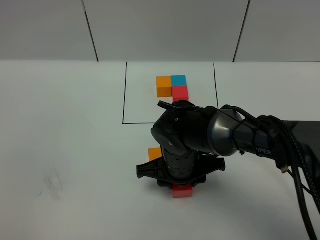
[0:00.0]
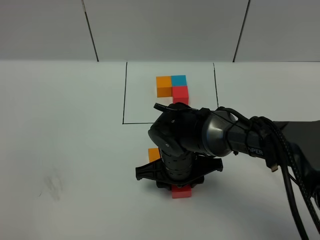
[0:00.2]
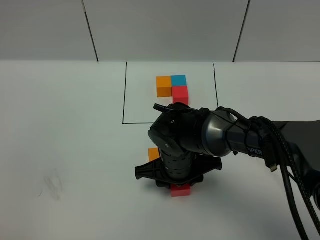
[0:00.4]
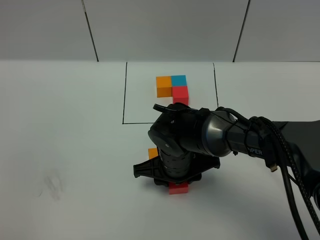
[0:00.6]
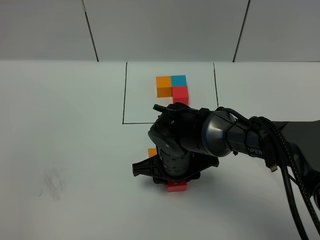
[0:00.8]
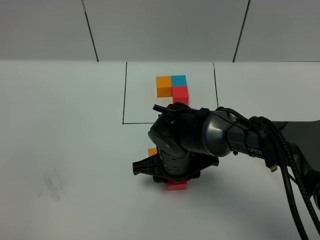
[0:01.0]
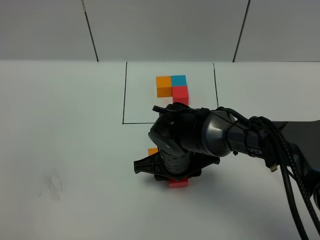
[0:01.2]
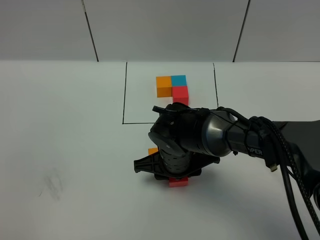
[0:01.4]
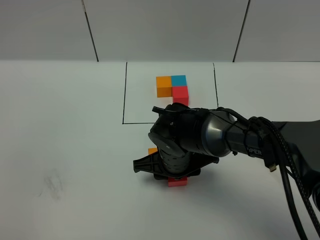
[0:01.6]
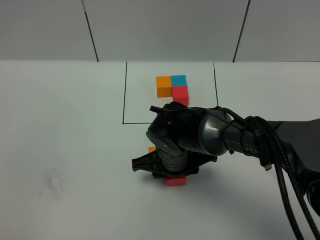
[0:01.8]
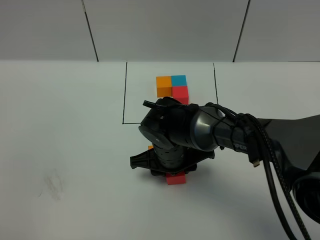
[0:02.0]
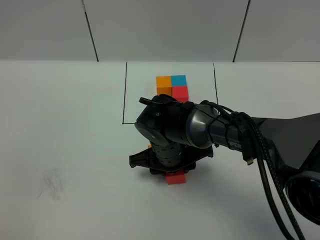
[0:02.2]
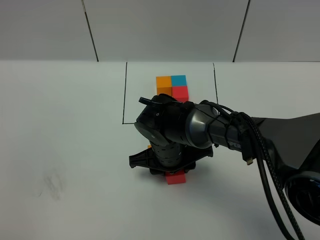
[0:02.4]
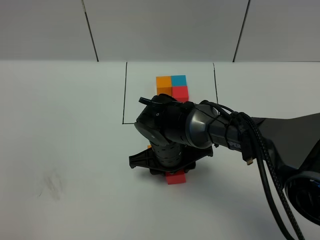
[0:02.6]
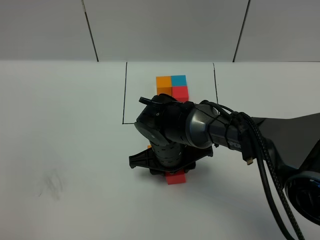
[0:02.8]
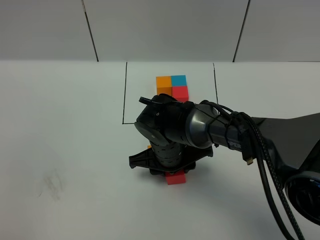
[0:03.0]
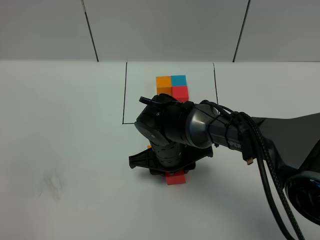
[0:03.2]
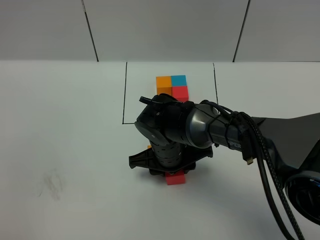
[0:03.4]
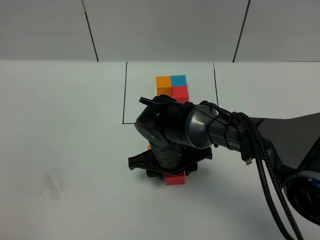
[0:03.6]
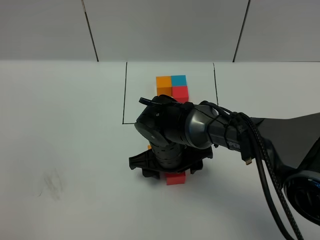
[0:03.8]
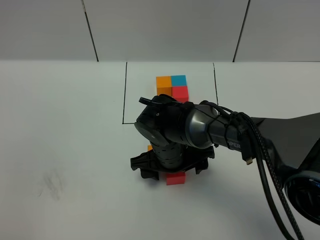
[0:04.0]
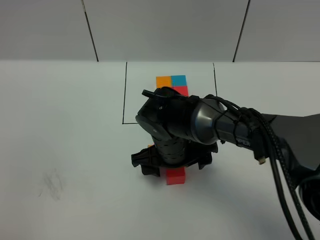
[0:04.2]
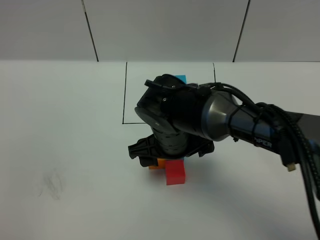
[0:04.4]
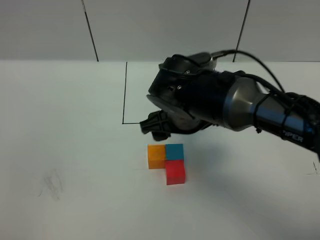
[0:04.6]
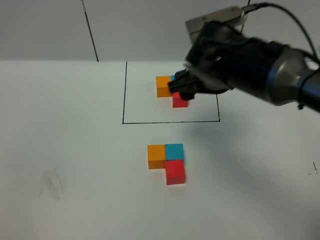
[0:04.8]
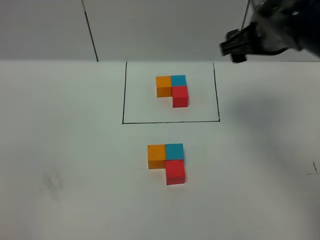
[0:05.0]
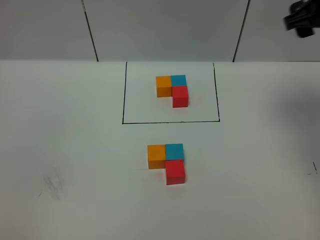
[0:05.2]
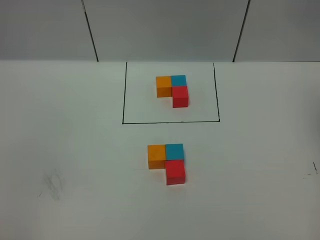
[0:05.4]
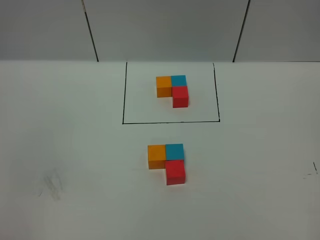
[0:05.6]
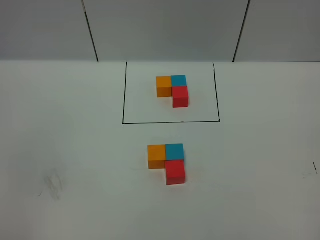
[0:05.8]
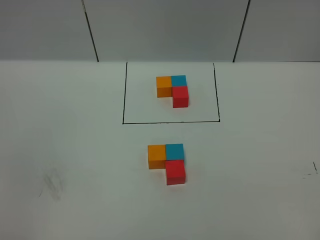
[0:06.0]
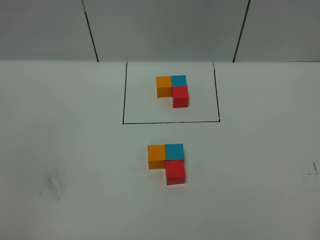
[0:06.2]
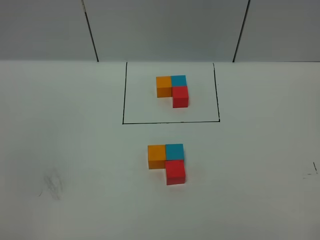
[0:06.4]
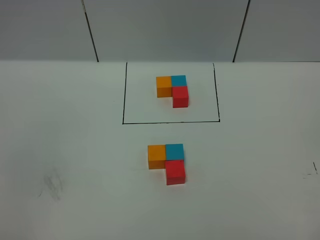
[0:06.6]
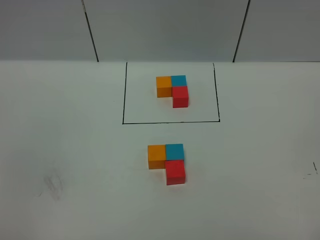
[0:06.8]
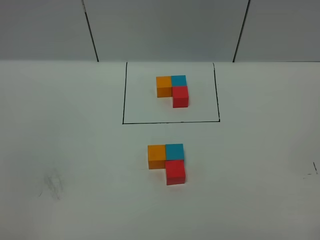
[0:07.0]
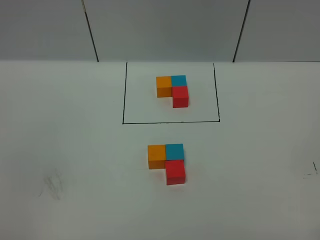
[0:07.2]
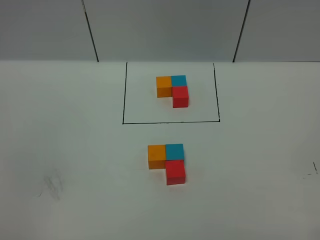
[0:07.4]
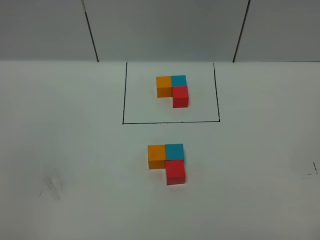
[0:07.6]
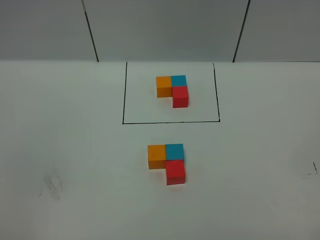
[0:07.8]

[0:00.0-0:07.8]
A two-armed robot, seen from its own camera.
Task of the whole recording: According to the building block template in front, assemble the scattered blocks together.
Step, 0:00.0 to 0:04.2: Put the red cube in the front of the blue cube.
0:00.0 to 0:03.2: There are only small adjustments of the grippers.
0:03.2 to 0:04.6: The right gripper shifts about 10 cm upward, and opens.
0:04.6 to 0:06.2: The right gripper shifts about 50 cm backward, to the right and upward.

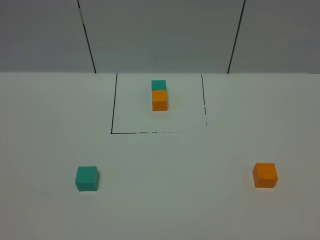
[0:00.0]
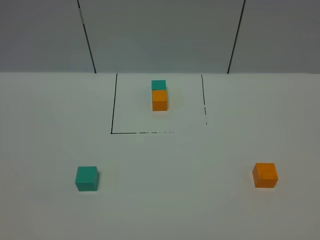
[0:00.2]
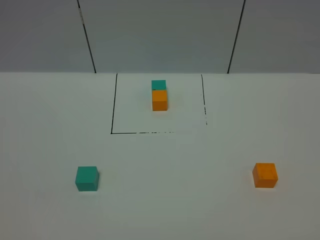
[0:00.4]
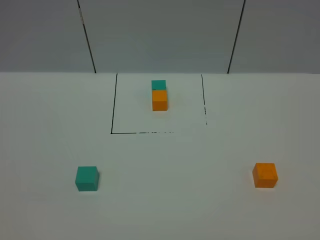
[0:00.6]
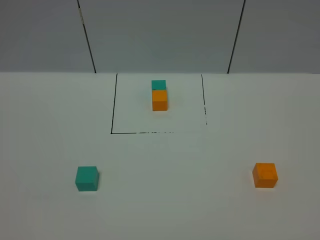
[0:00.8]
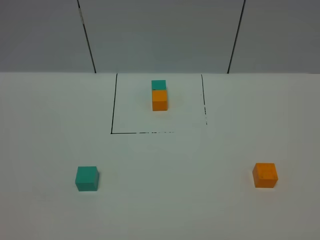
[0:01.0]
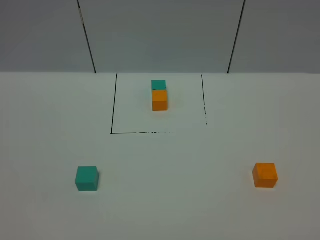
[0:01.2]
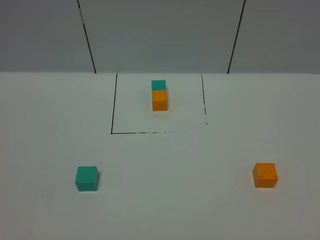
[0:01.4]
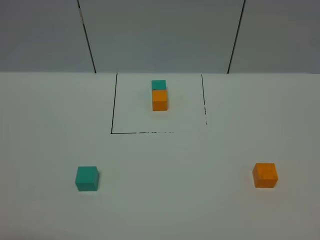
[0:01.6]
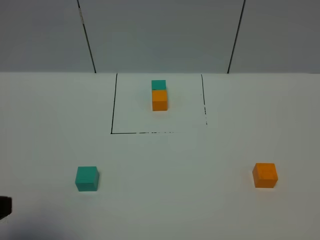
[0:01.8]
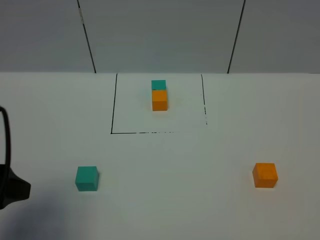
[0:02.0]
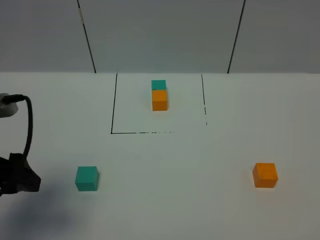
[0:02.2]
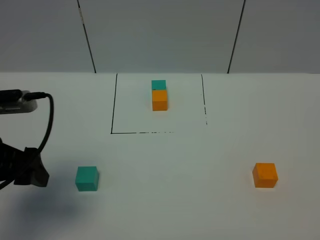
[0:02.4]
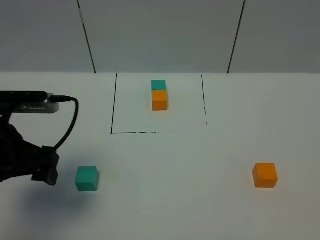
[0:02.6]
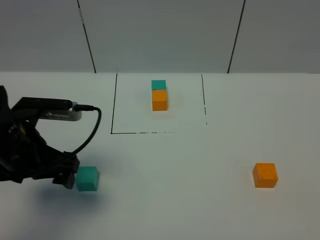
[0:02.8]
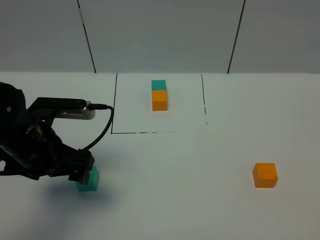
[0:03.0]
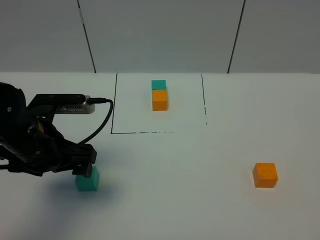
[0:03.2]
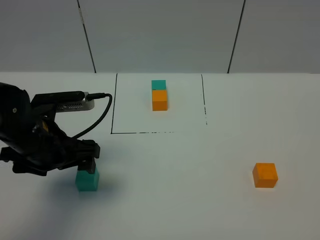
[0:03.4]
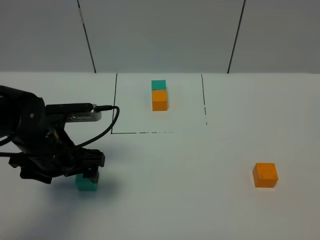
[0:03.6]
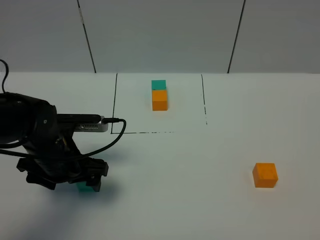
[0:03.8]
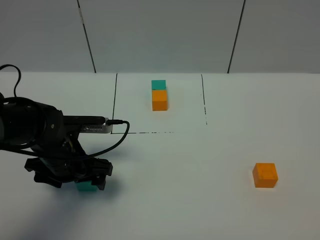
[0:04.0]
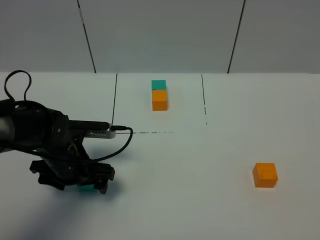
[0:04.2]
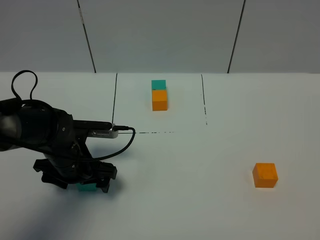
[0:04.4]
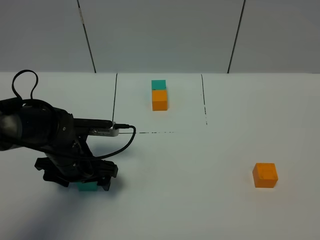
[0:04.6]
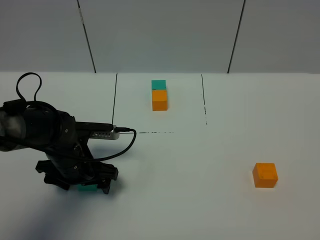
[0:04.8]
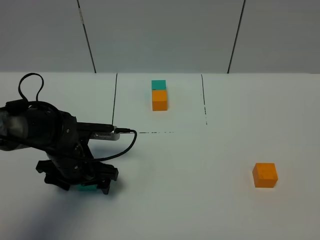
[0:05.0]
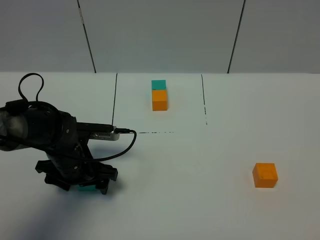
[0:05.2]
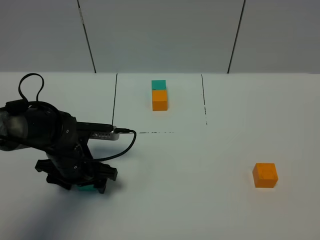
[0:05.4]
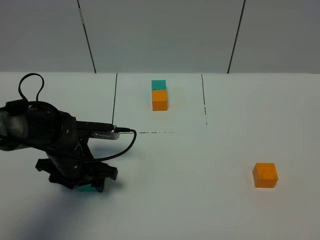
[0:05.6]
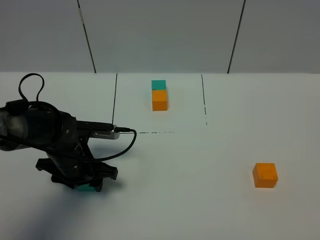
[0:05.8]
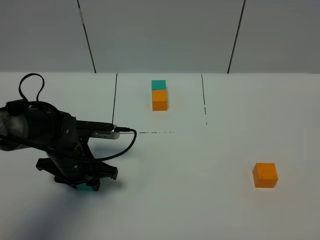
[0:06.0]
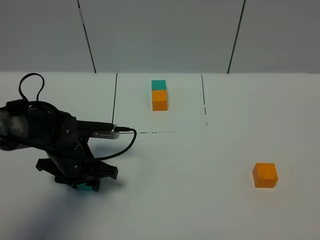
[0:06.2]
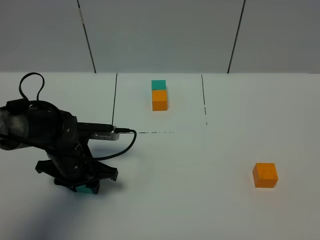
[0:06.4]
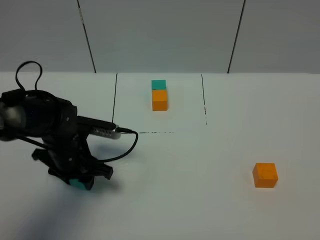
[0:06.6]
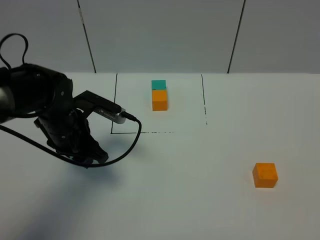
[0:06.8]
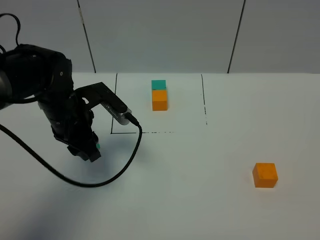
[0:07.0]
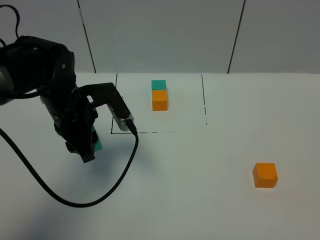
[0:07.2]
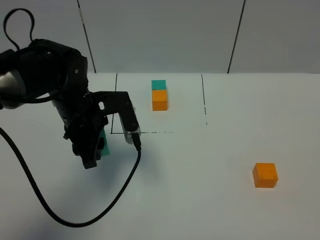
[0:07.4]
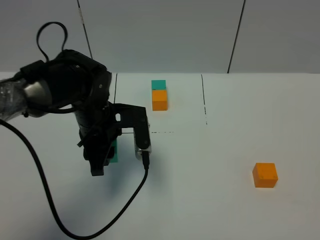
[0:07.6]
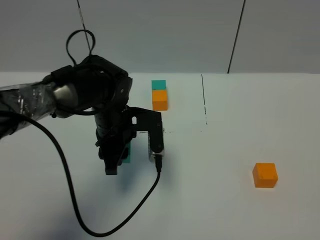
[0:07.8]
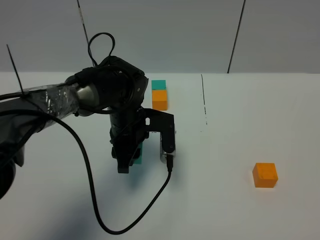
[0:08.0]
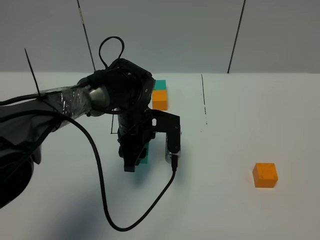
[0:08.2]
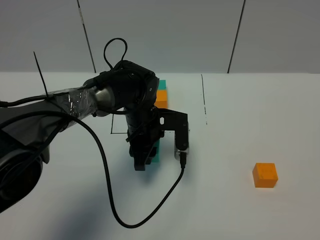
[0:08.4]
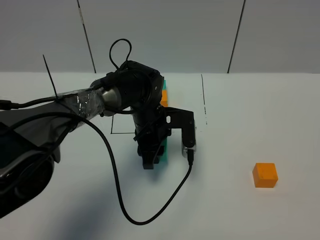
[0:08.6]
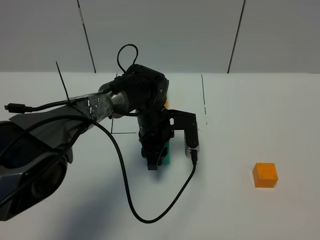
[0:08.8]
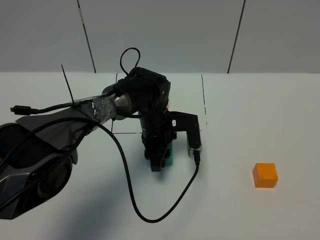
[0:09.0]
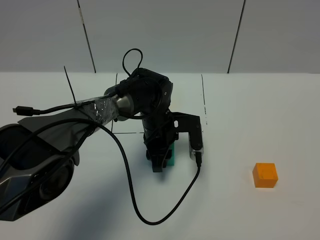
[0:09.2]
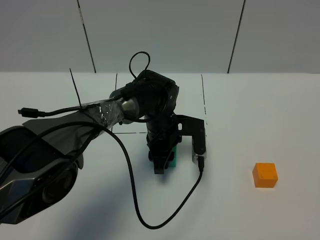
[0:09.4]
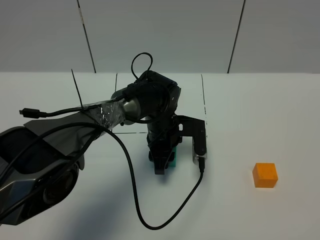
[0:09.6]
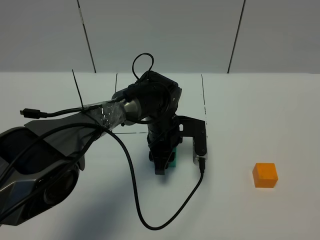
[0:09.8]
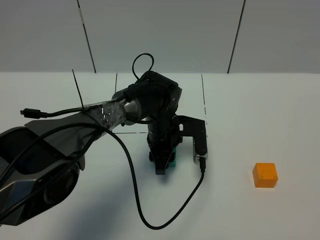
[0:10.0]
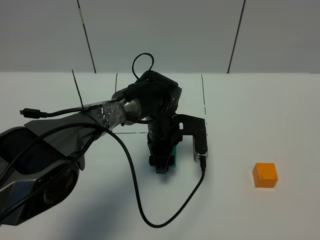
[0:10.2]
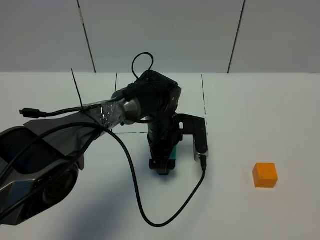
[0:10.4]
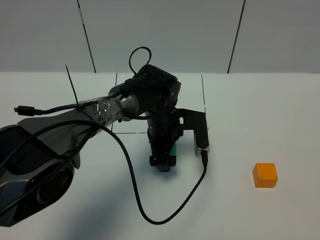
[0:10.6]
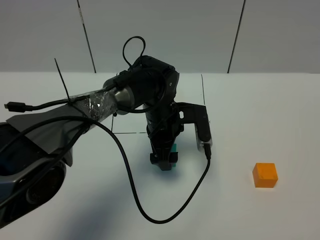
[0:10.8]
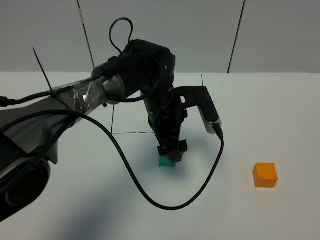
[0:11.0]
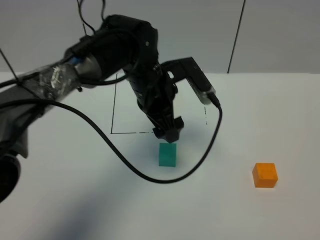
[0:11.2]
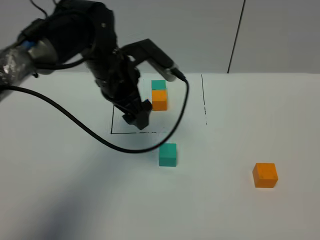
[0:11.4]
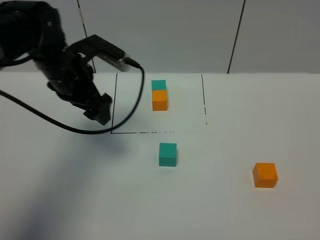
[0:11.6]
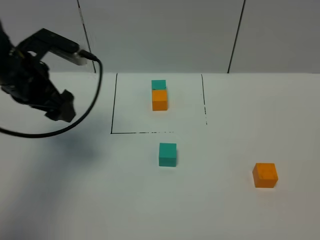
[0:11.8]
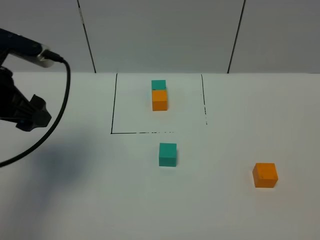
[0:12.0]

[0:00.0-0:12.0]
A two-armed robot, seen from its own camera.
Task of the whole recording: According to the building block template in front, assemble the scattered blocks together.
Step, 0:01.8 to 0:10.2: Put the green cube in the center of the table.
0:01.6 to 0:03.0: The left gripper is displaced forward and to the right by approximately 25 cm.
0:03.0 to 0:04.4: The left gripper shifts roughly 10 cm downward.
0:04.4 to 0:06.0: The left gripper closes.
0:06.0 to 0:07.6: The left gripper travels upward and to the right by roughly 10 cm.
0:07.6 to 0:09.0: The left gripper goes about 15 cm to the right, downward and forward.
0:09.0 to 0:10.4: The left gripper opens.
0:10.4 to 0:12.0: The left gripper travels to the left, upward and backward by approximately 35 cm.

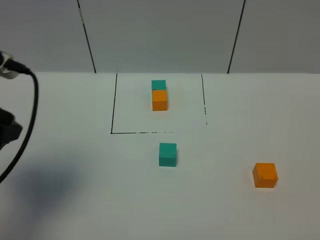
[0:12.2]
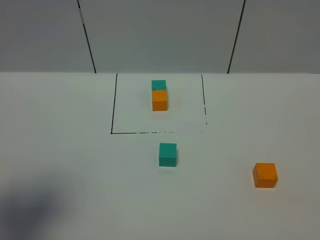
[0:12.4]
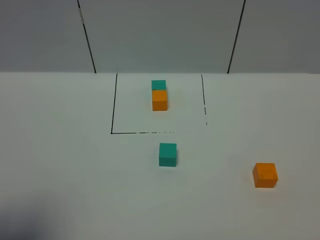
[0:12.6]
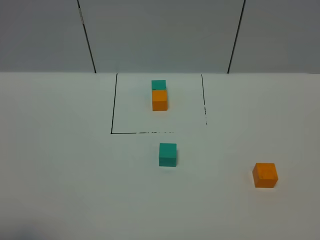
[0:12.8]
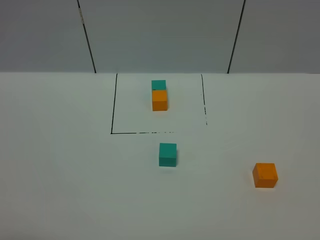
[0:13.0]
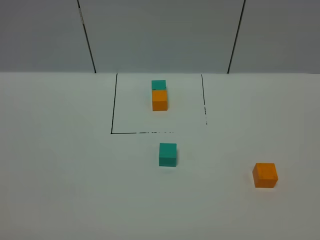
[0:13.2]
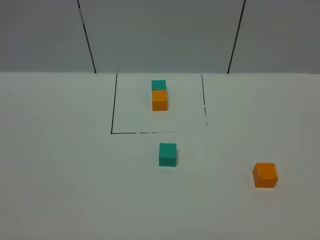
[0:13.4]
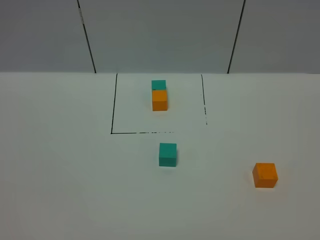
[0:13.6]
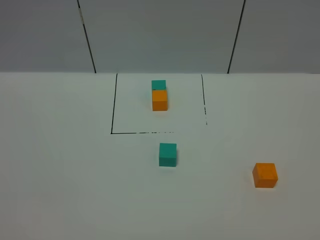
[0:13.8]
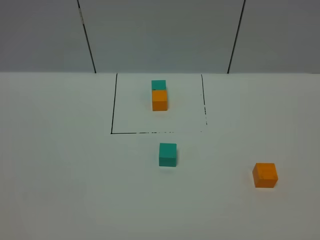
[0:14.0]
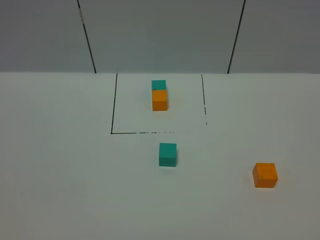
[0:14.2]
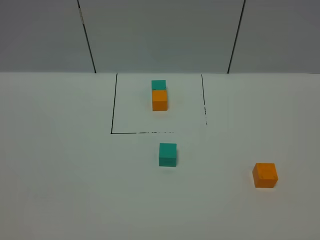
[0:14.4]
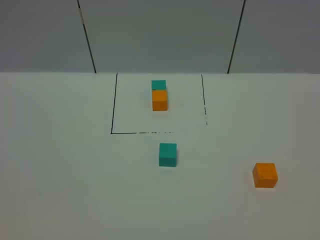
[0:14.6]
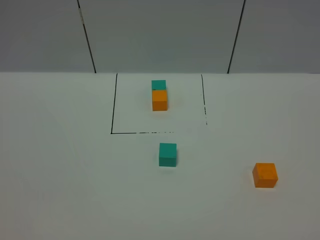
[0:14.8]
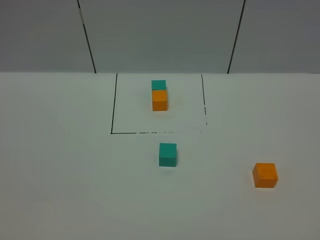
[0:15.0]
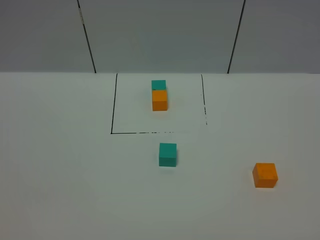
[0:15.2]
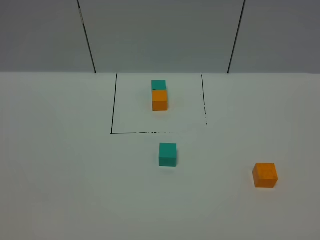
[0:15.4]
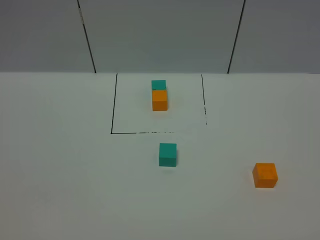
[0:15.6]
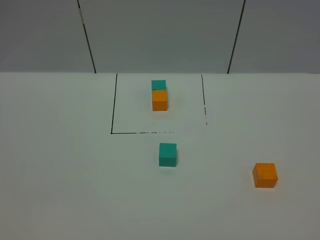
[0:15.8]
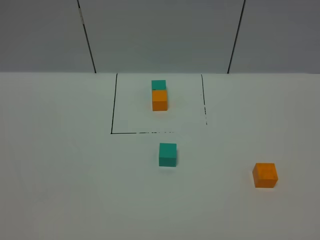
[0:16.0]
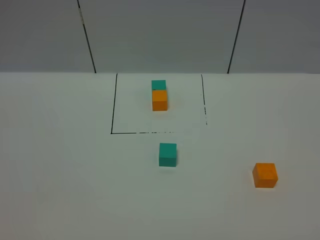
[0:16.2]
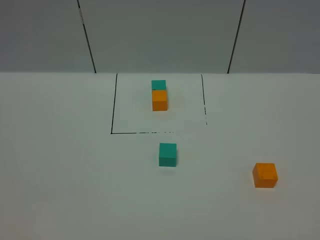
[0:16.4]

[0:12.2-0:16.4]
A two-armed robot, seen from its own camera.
Task of the whole recording: According to the building block template in front, assemble the scattered blocks together.
0:12.2 to 0:13.6: The left gripper moves backward, some 20 cm.
0:15.0 to 0:16.4: Both grippers stay put.
